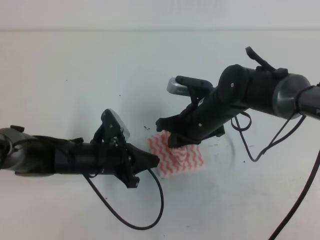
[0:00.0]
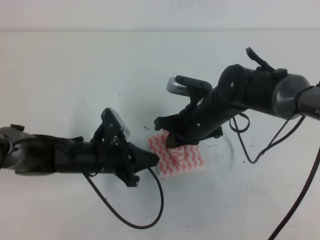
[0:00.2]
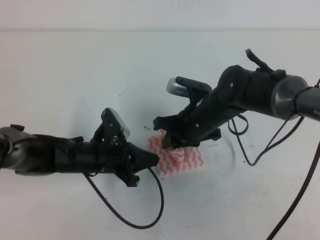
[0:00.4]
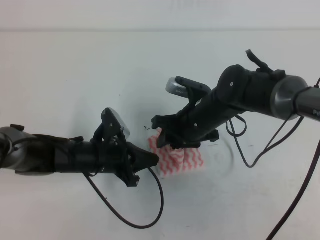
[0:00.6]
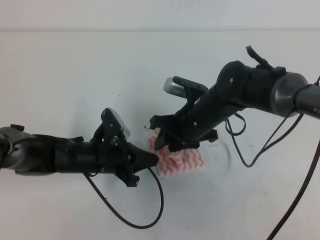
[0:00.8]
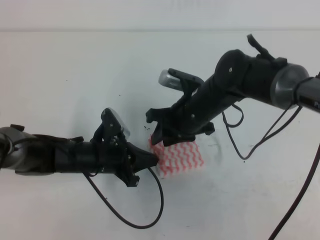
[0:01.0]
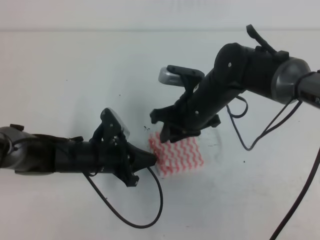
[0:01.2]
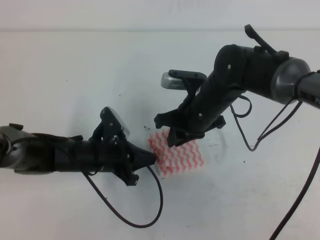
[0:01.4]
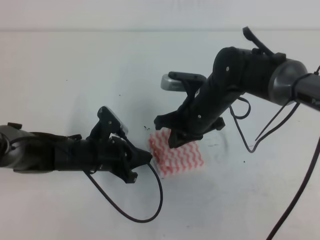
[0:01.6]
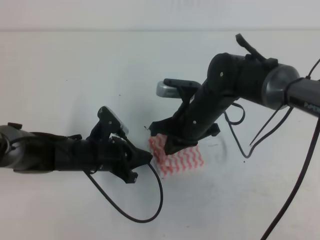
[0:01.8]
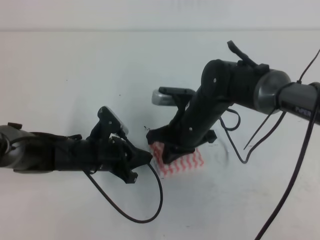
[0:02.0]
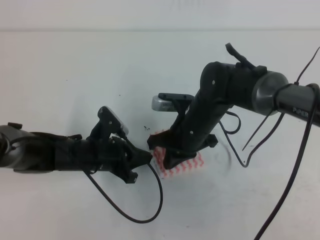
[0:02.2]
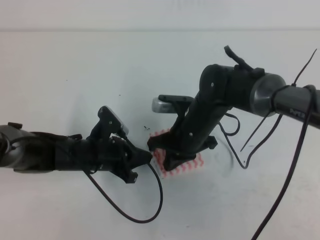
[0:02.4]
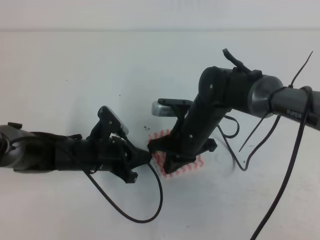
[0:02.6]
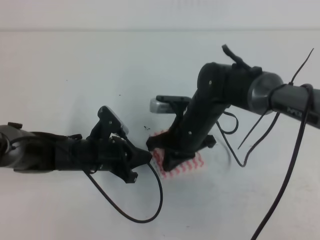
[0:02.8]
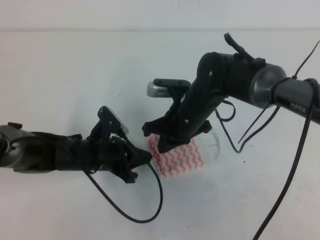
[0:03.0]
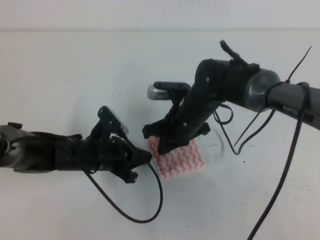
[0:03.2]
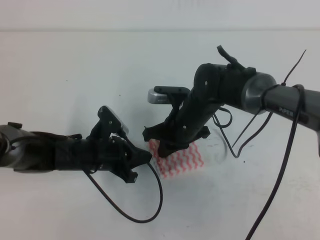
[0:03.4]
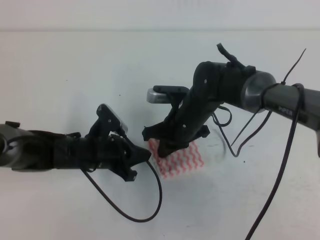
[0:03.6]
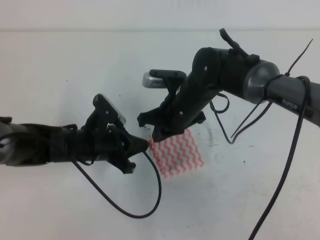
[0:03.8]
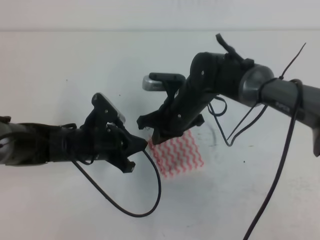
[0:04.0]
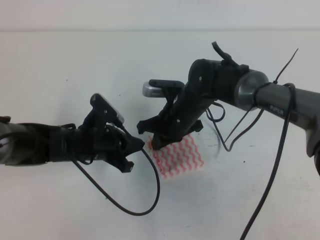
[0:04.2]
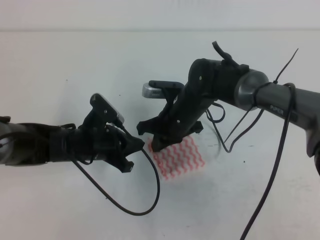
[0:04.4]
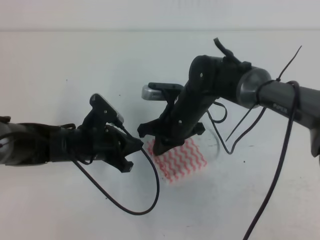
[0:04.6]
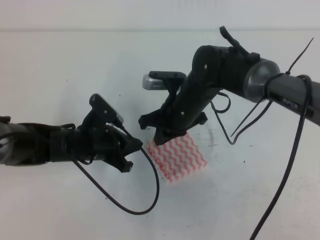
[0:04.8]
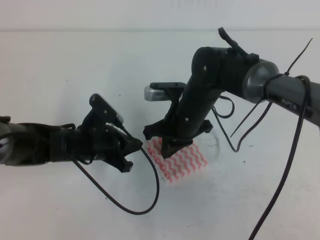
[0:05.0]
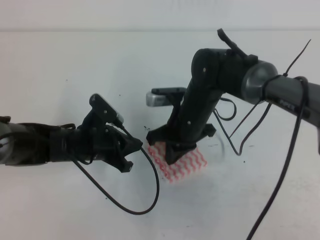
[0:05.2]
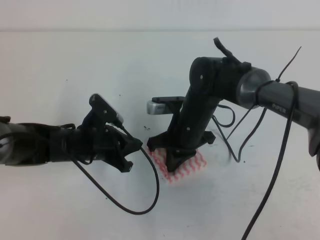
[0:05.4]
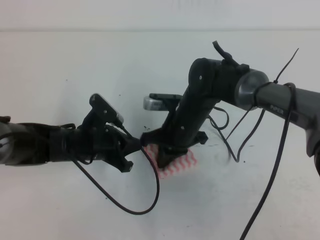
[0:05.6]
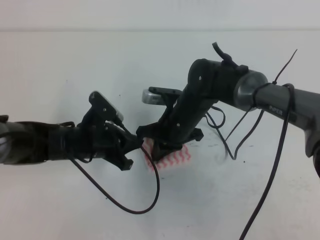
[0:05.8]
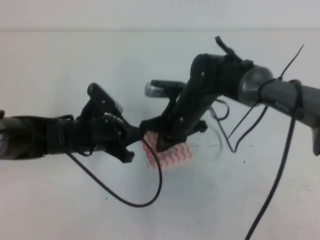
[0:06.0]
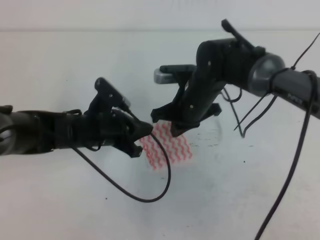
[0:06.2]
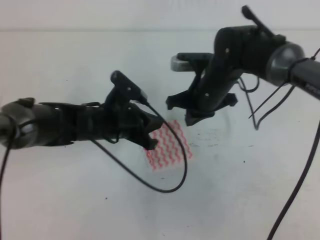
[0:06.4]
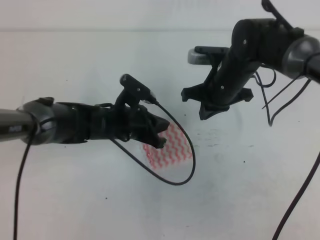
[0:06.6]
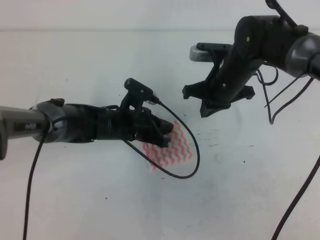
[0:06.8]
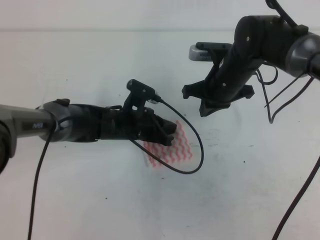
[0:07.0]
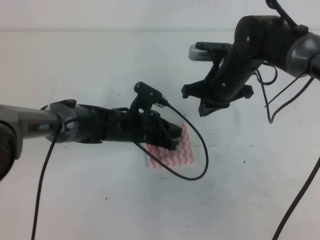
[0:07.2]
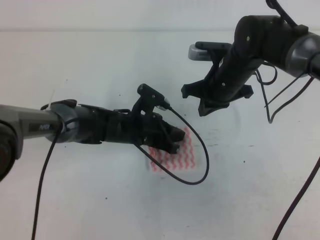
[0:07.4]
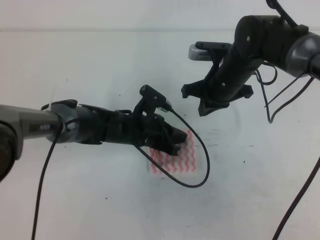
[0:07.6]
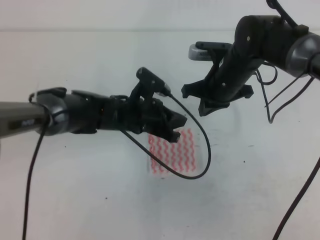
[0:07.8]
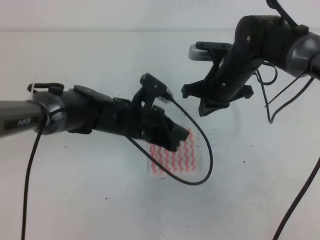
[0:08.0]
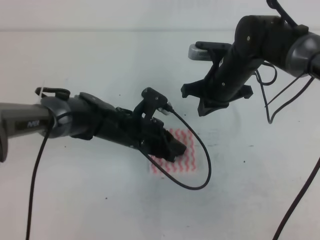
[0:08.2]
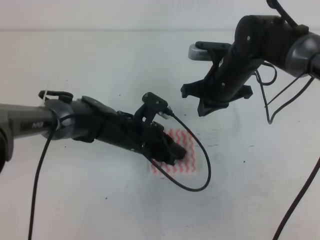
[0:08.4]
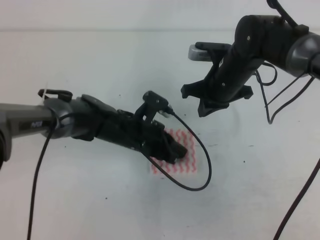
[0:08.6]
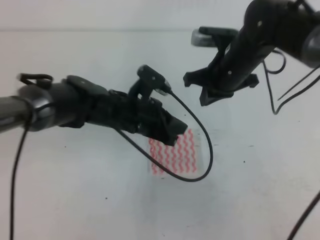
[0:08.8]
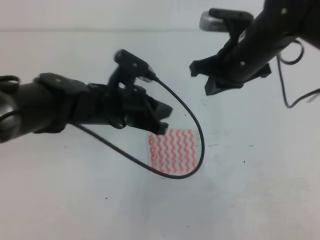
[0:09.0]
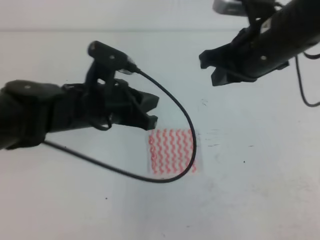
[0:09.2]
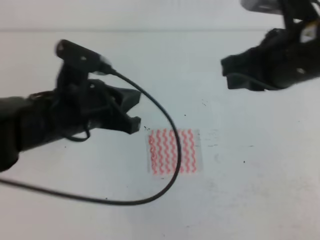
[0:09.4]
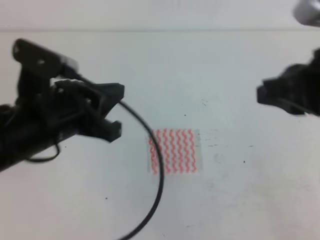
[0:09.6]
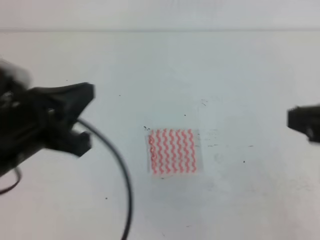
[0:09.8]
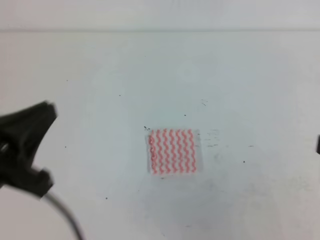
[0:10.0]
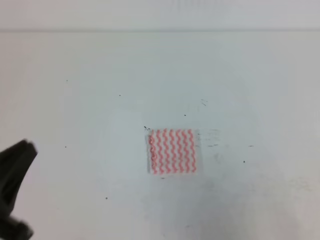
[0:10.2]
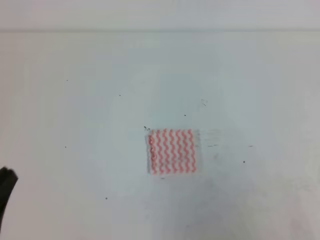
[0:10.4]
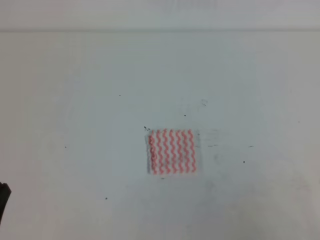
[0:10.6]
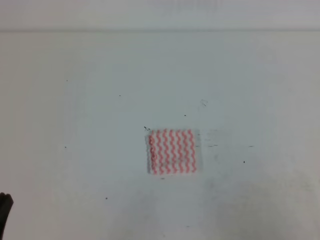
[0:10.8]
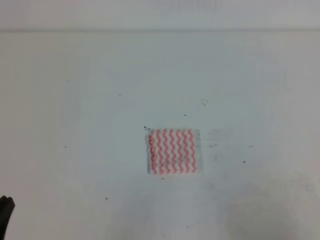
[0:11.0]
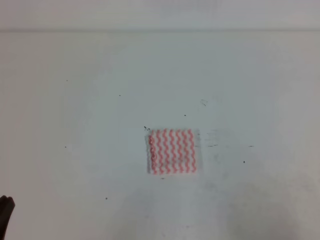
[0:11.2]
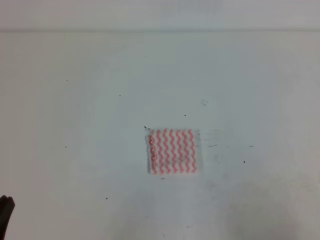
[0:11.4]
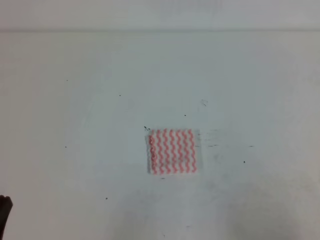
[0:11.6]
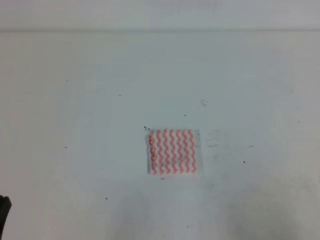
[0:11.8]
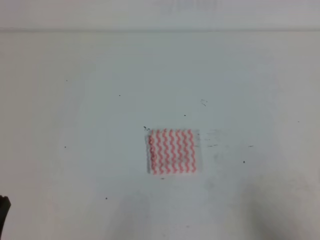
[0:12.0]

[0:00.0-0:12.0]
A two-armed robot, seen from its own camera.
0:00.0 to 0:01.6: The right gripper opens, then closes again.
0:01.6 to 0:06.0: There are only small adjustments of the grippers.
0:06.0 to 0:07.6: Both grippers travel together to the right, about 10 cm.
0:07.6 to 0:09.0: The grippers both shift upward by about 10 cm.
0:09.0 to 0:10.4: The left gripper shifts some 30 cm backward and to the left; the right gripper heads backward and to the right, covering some 35 cm.
0:10.4 to 0:12.0: Both grippers travel together downward, some 10 cm.
